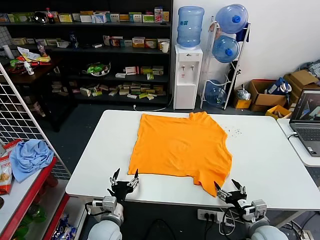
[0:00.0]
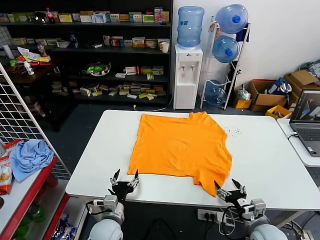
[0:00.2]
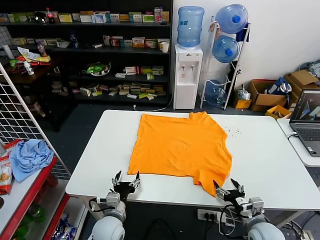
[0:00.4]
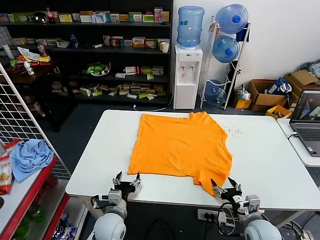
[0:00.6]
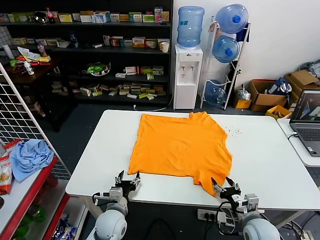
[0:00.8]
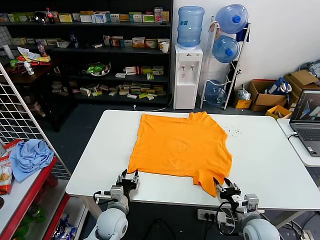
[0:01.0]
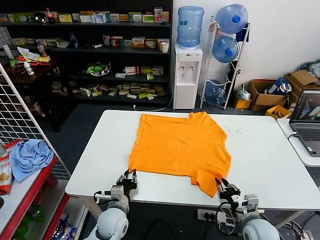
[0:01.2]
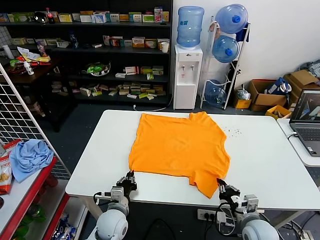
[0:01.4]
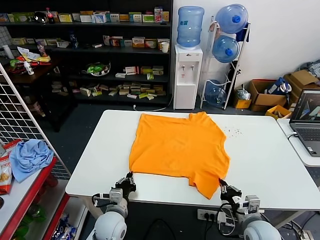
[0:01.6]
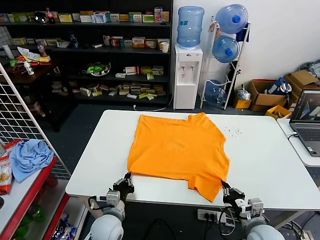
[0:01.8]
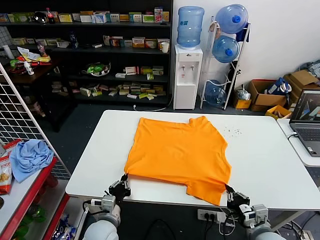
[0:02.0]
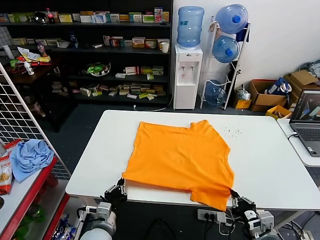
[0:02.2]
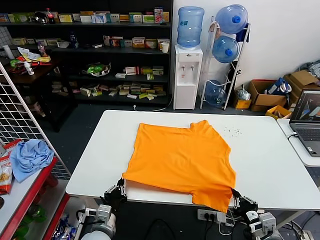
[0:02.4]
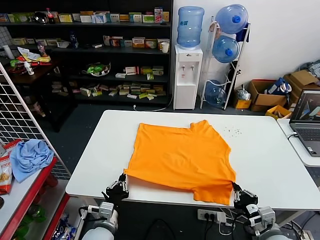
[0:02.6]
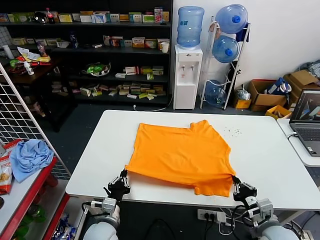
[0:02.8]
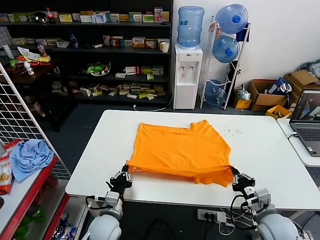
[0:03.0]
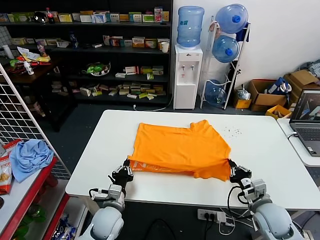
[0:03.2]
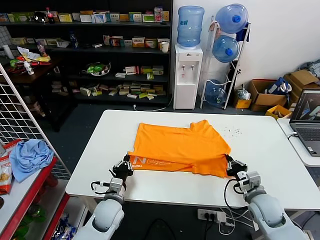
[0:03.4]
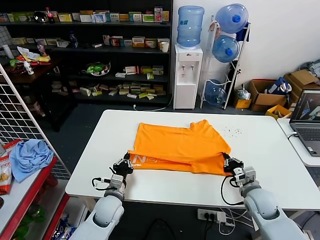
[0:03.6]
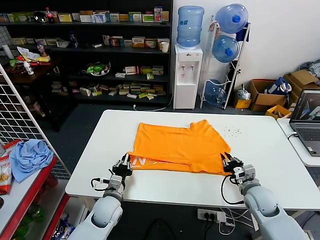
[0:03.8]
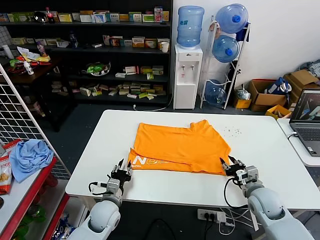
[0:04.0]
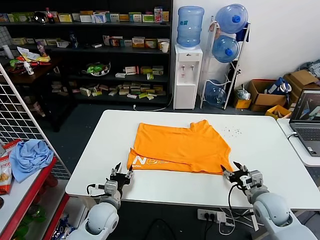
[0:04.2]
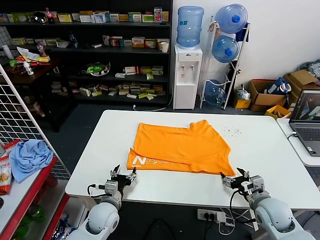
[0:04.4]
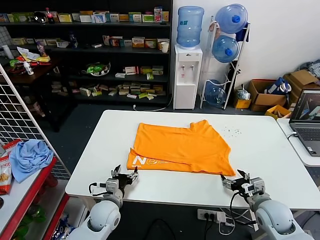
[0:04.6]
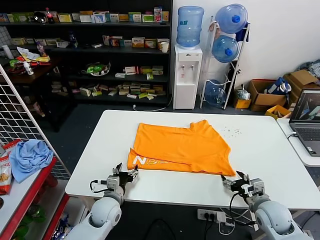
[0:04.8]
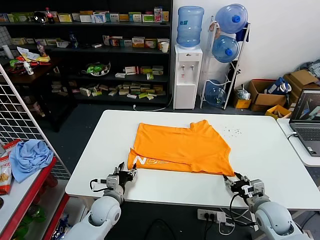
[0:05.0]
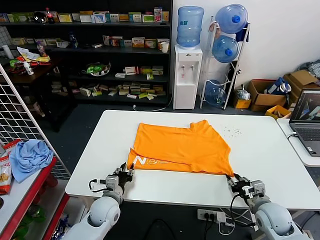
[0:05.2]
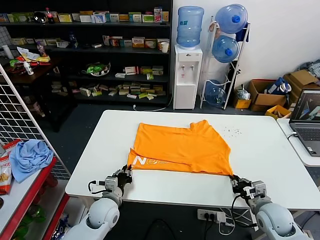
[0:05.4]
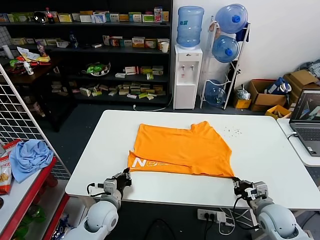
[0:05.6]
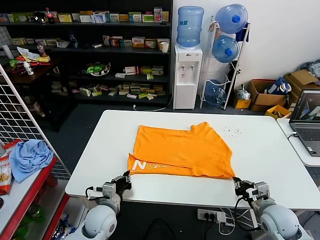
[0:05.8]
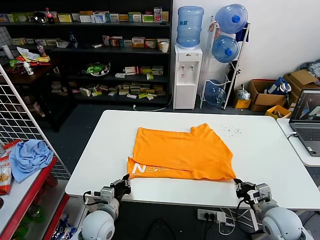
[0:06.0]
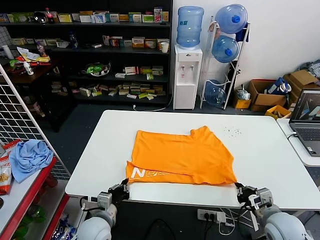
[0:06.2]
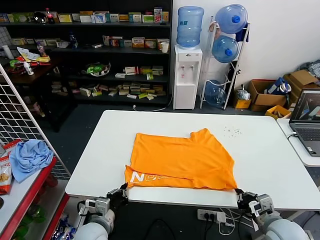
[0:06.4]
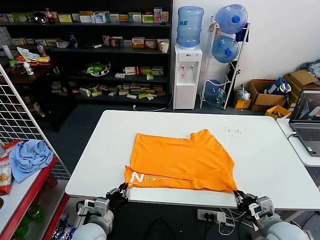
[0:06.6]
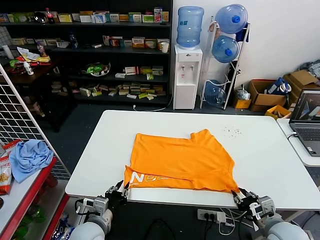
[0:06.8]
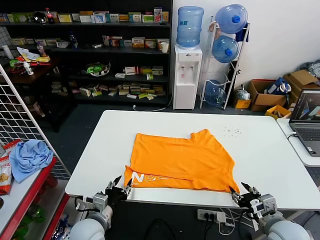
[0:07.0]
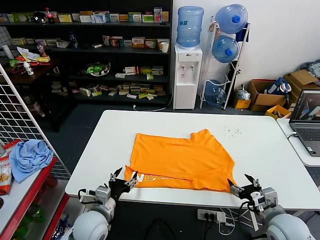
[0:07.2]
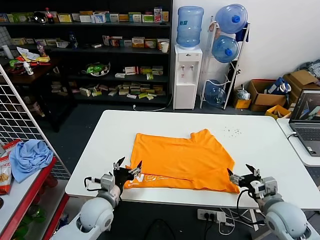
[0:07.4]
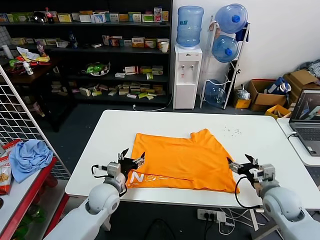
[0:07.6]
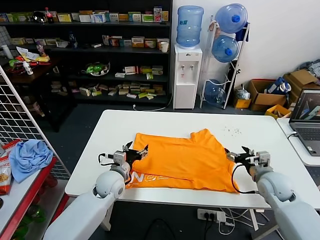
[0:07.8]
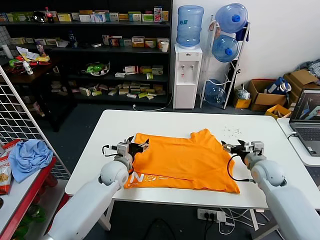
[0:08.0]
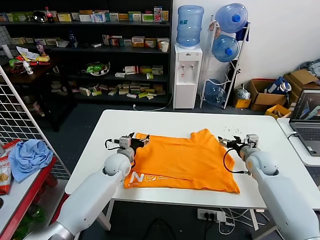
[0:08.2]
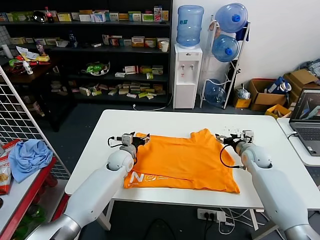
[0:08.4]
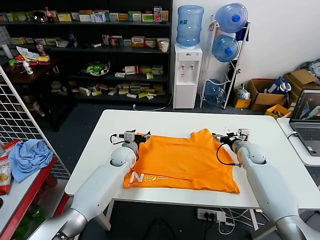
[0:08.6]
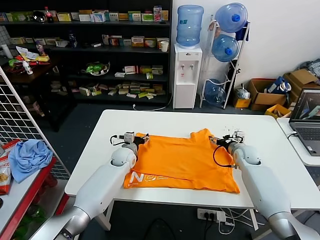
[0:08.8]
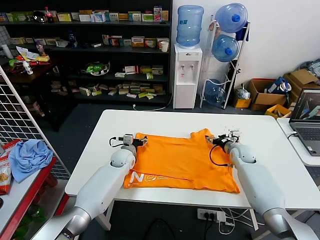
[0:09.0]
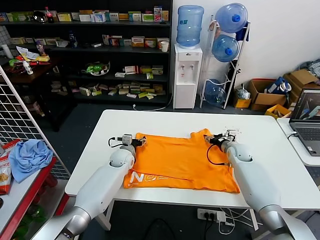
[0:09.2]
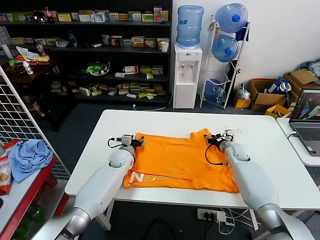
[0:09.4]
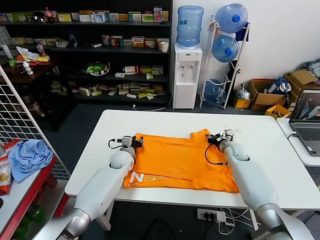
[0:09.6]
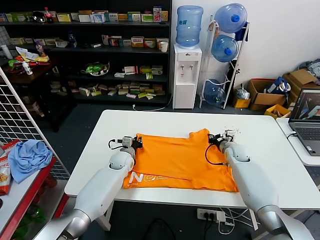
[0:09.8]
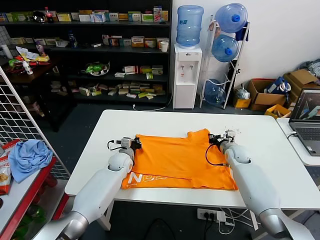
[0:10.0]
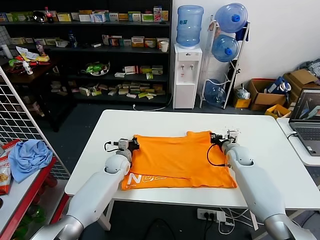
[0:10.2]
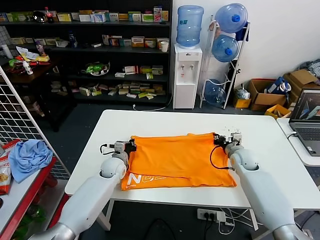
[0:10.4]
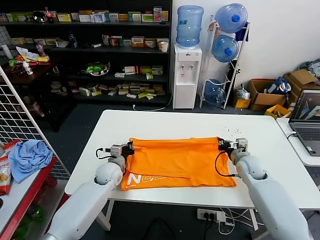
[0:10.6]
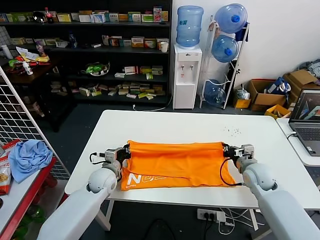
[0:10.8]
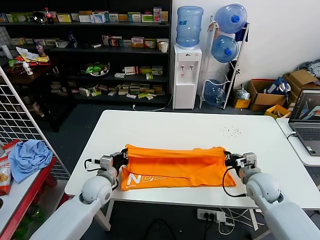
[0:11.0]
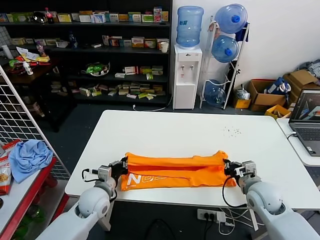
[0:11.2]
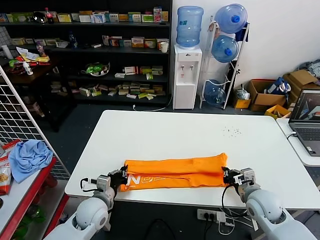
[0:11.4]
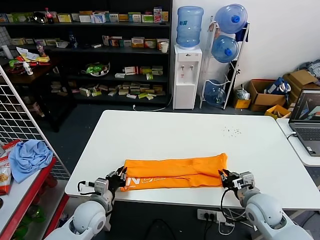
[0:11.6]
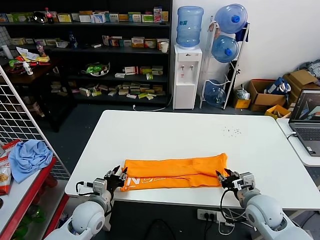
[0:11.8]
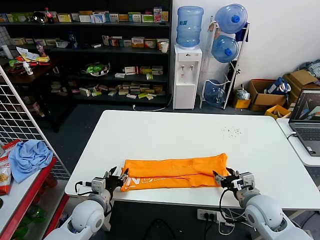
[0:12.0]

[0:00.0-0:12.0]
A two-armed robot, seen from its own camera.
Task of the whole recording: fold and organize the clothes.
Step, 0.0 to 1.6 s: use both grippers simultaneously to clamp the lower edge of the clothing fabric.
Step, 1.8 to 3.8 s: use both grippers to drag the lower edge of the fabric forward and fold it over the upper edge.
Step, 4.0 to 7.0 s: Drag the clothes downward with both gripper.
Step, 7.2 to 10.0 s: use both grippers simultaneously to clamp the upper edge of the clothing fabric.
Step, 10.2 to 11.8 s: use both grippers to drag the upper edge of the fabric backward and fold it over the lower edge.
1.6 to 3.0 s: The right gripper travels backward and back again, about 5 cm each way.
3.0 to 4.4 s: The left gripper opens. The right gripper opens up.
4.4 to 6.0 s: The right gripper closes; the left gripper closes.
6.0 to 7.6 s: Both grippers travel together forward, some 5 cm. The right gripper opens its fingers; the left gripper opens.
7.6 to 9.0 s: Both grippers travel together forward, roughly 20 cm.
9.0 to 10.4 s: The right gripper moves approximately 5 cm, and closes its fingers; the left gripper moves about 5 cm, and closes up.
10.4 to 12.0 s: Both grippers travel together backward, approximately 20 cm. The left gripper opens its fingers, while the right gripper opens.

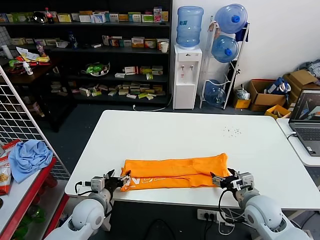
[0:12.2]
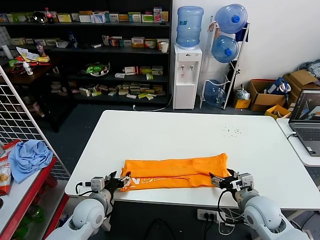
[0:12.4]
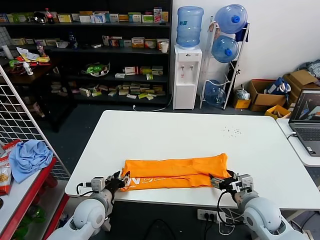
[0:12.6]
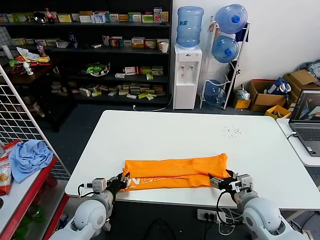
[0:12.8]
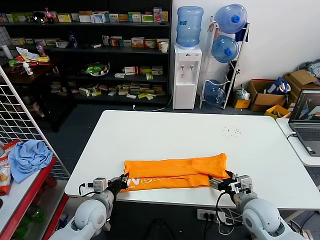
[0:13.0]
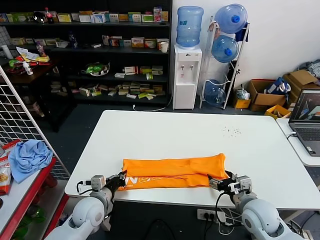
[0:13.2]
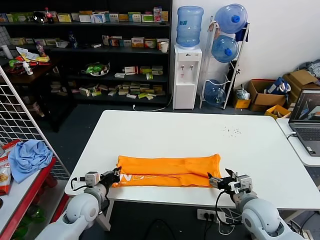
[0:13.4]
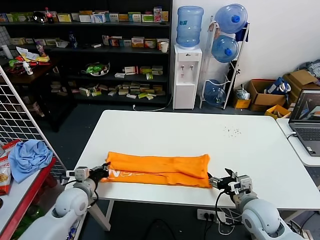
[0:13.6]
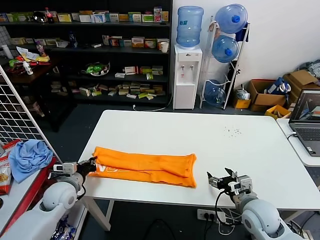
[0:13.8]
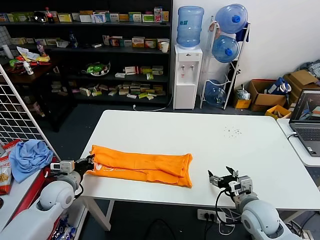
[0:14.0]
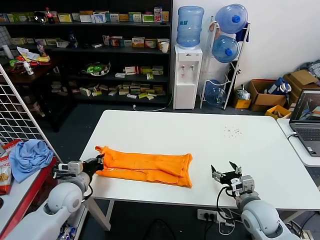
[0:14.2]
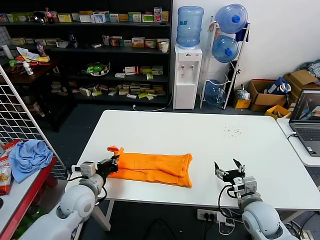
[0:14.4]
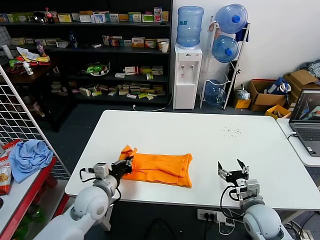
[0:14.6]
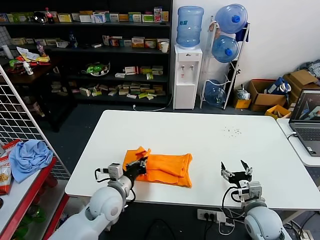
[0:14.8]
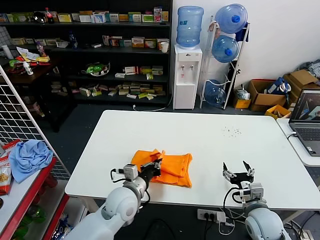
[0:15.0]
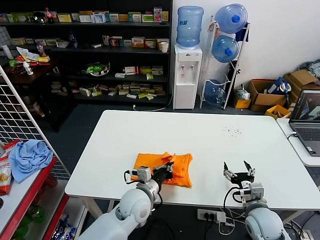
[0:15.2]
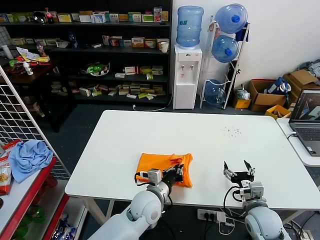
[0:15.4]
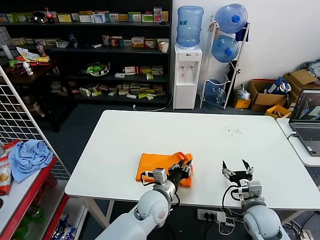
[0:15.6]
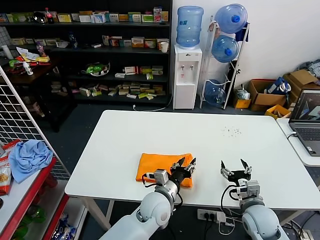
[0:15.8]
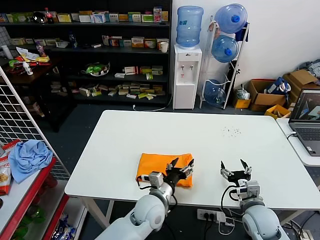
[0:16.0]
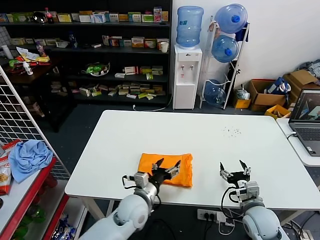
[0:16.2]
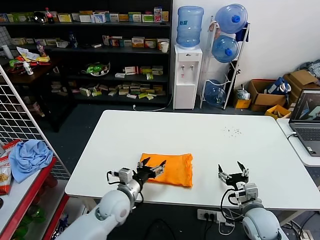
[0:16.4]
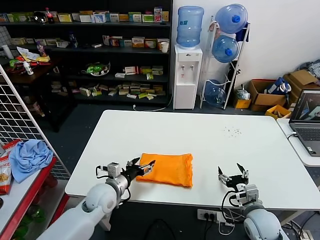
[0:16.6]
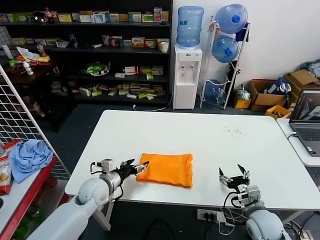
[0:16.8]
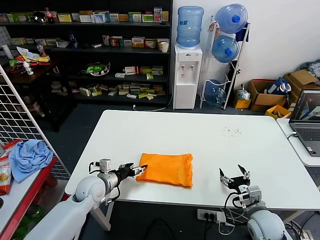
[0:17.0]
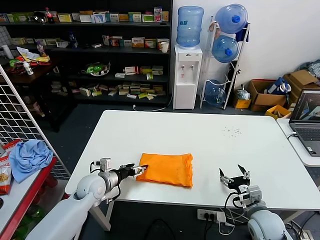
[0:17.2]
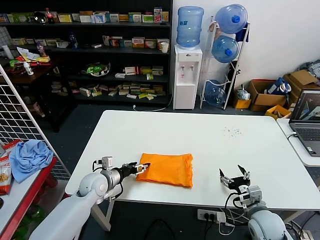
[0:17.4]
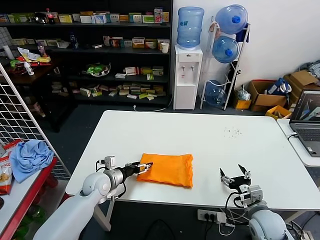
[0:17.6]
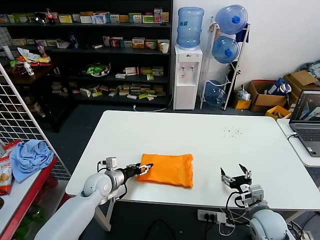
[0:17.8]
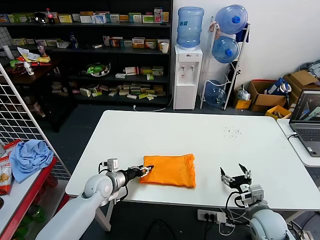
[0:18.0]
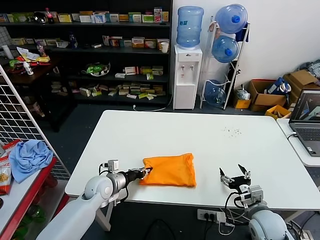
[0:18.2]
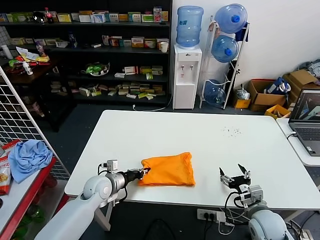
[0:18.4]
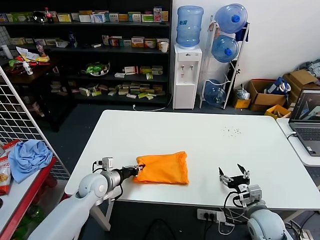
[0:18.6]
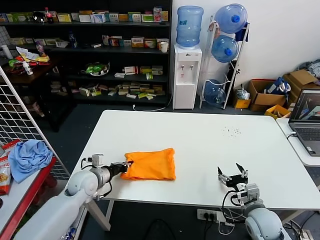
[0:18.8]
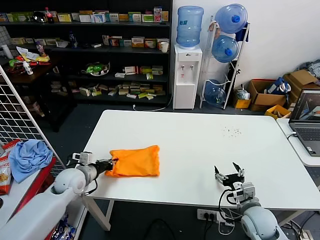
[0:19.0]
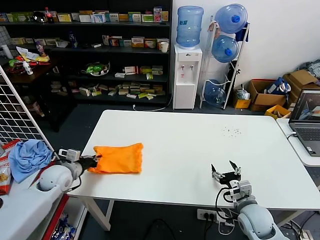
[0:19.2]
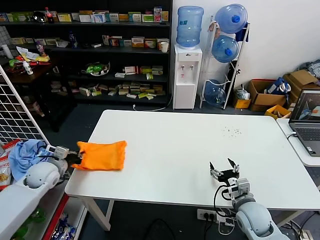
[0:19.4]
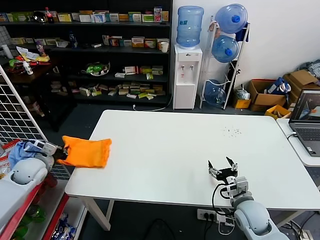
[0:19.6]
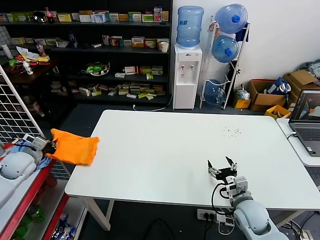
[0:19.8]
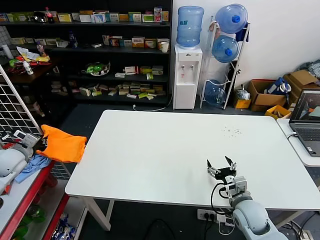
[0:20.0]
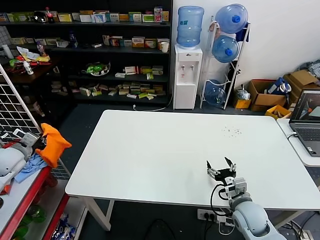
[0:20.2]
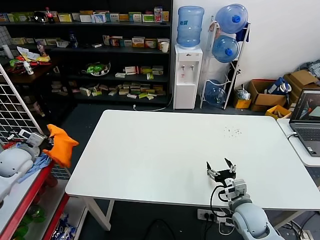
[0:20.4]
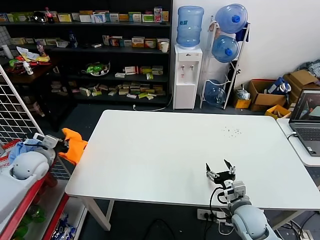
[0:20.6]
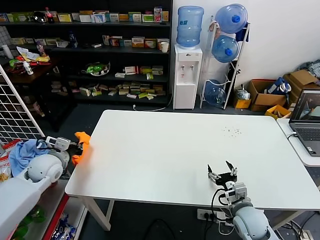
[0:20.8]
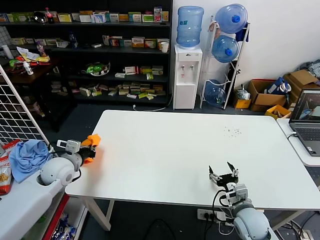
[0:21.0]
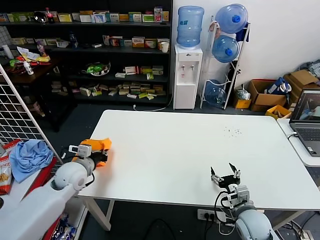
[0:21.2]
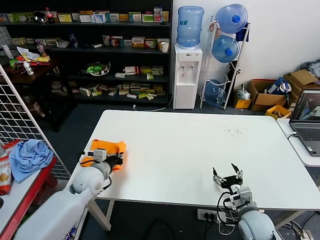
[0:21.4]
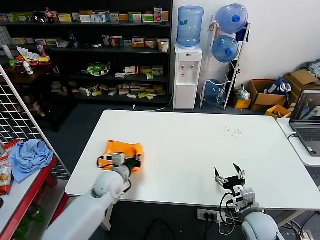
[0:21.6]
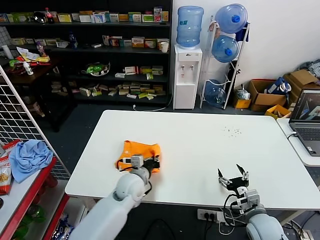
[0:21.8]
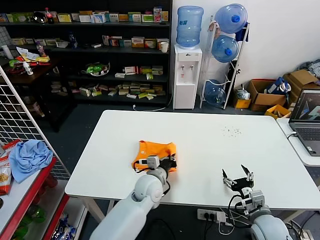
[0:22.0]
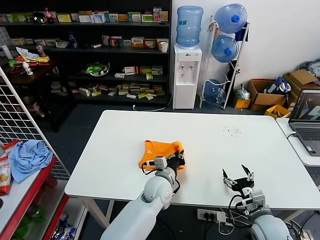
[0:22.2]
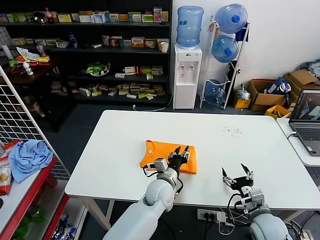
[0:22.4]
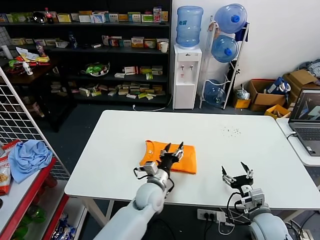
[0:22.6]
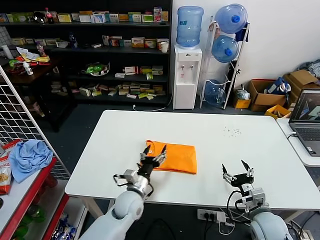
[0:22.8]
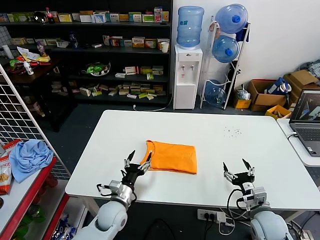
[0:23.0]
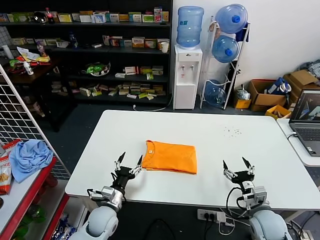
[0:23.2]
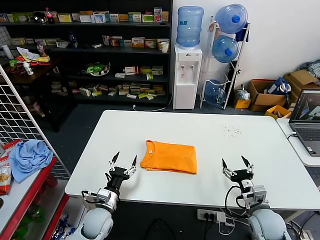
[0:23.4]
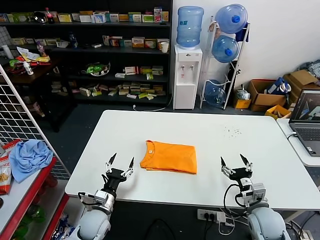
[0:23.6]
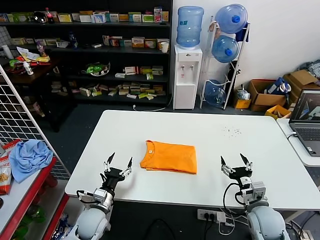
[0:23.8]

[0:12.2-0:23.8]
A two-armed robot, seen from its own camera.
Task of the whole recording: fold and organize the clothes.
Step, 12.2 to 13.2 s: use the left gripper to clamp the left edge of the fabric.
Step, 13.4 to 15.8 s: use the left gripper to drag the left edge of the fabric to the left and folds it over the right edge.
Step, 16.0 to 22.4 s: Flip the folded clothes over with left gripper.
12.2 to 13.6 s: The left gripper goes approximately 5 cm to the left, and closes its fingers.
13.6 to 15.0 s: The left gripper is displaced to the right by approximately 15 cm.
15.0 to 16.6 s: The left gripper goes approximately 5 cm to the left, and opens its fingers.
16.6 to 18.0 s: The left gripper heads forward, covering some 5 cm, and closes up.
18.0 to 19.4 s: The left gripper moves to the left and upward, approximately 20 cm, and closes up.
19.4 to 21.0 s: The left gripper goes to the left and returns, approximately 10 cm each way.
21.0 to 22.4 s: The right gripper ends up roughly 5 cm from where it was. The left gripper is displaced to the right by roughly 35 cm, and opens its fingers.
22.4 to 23.8 s: The left gripper moves to the left, about 25 cm, and opens.
